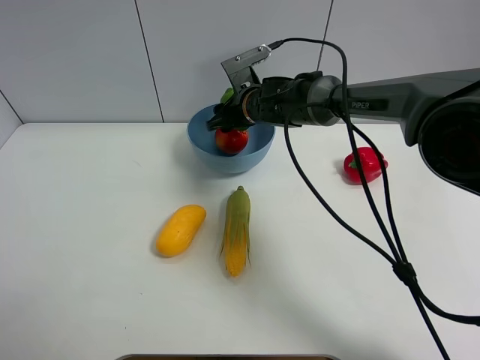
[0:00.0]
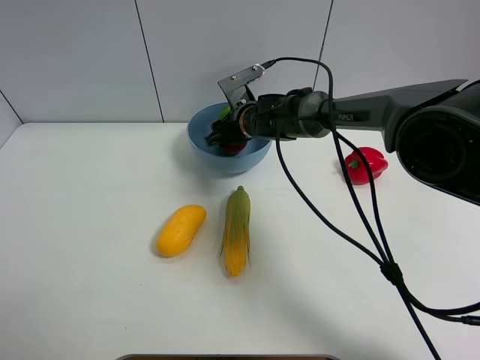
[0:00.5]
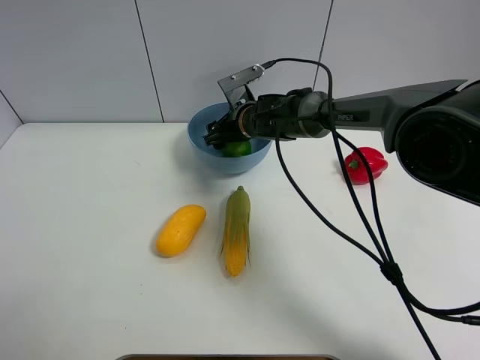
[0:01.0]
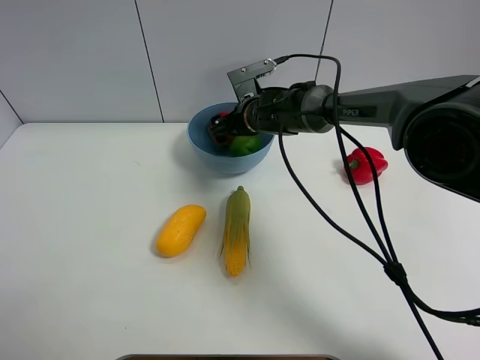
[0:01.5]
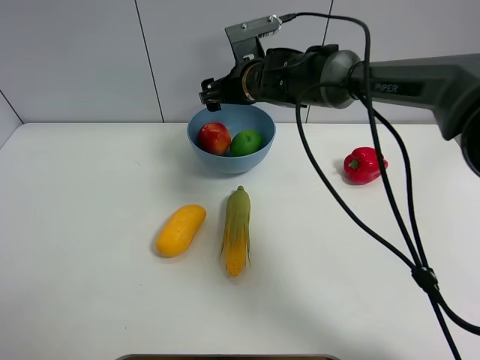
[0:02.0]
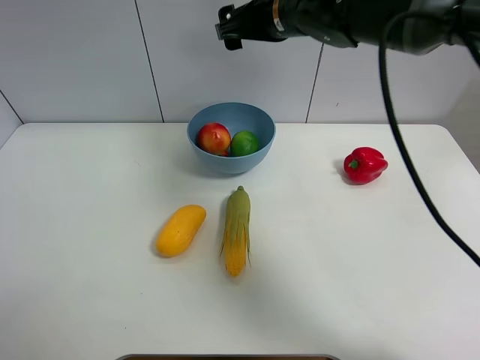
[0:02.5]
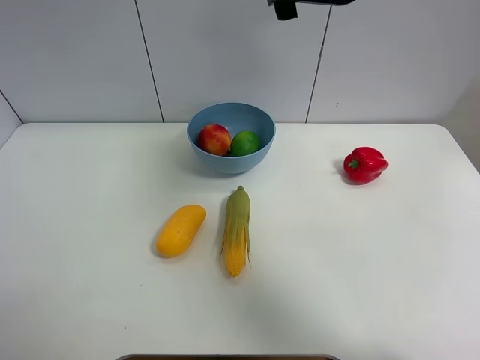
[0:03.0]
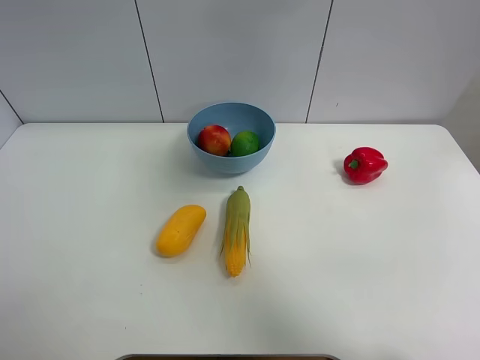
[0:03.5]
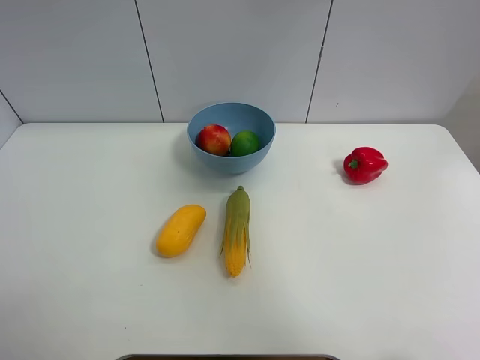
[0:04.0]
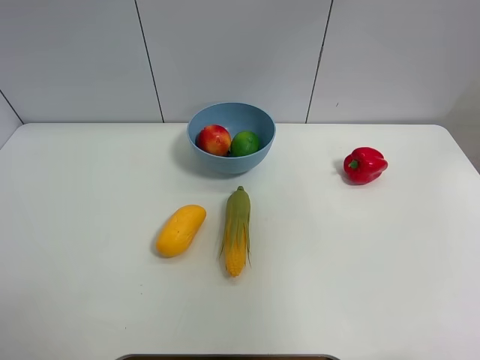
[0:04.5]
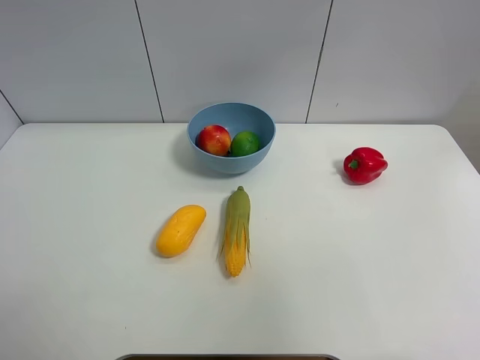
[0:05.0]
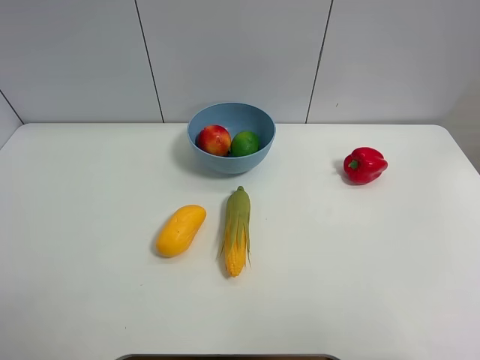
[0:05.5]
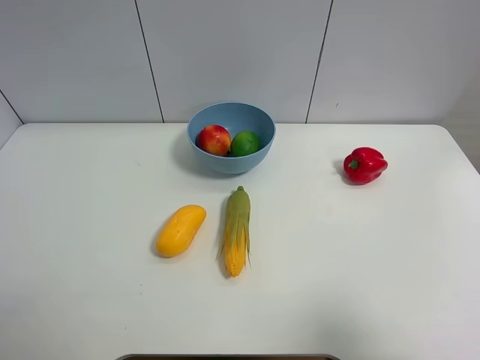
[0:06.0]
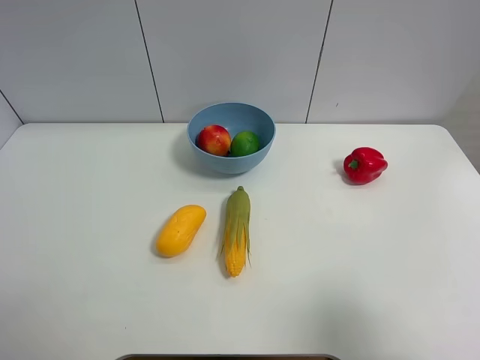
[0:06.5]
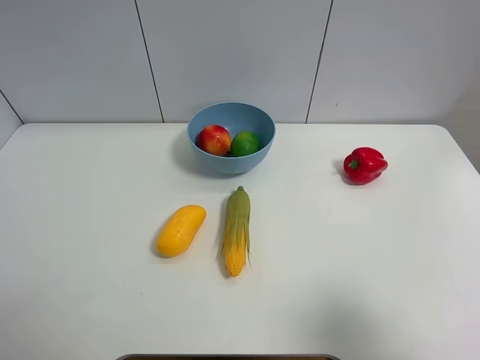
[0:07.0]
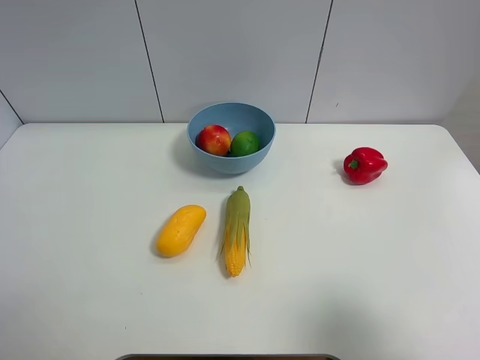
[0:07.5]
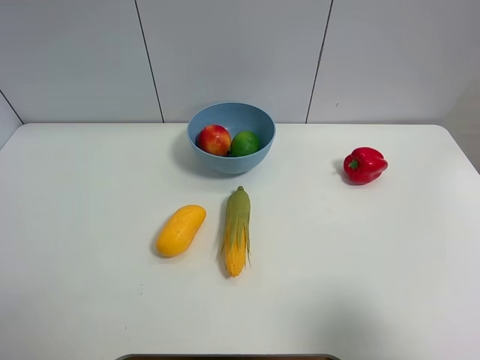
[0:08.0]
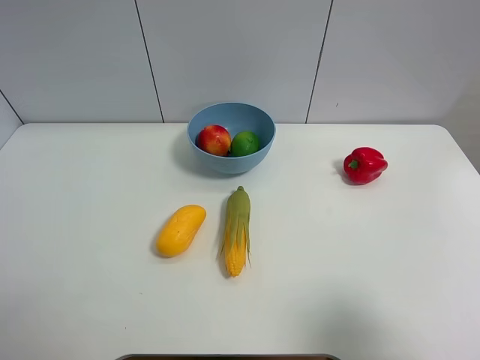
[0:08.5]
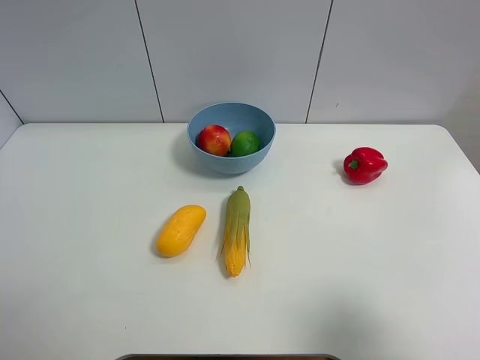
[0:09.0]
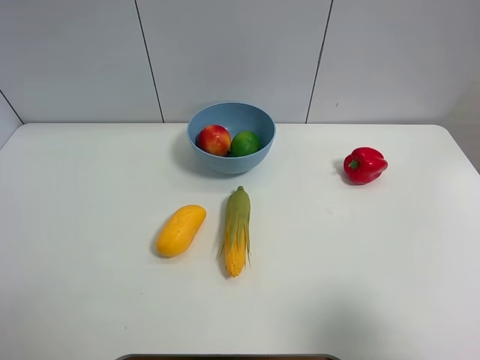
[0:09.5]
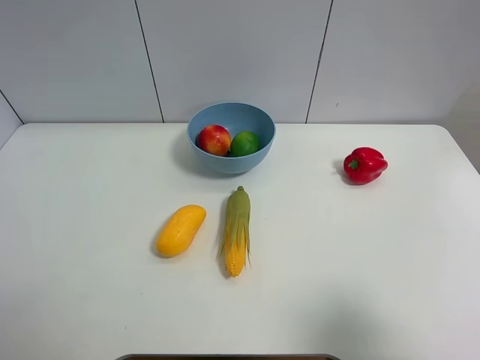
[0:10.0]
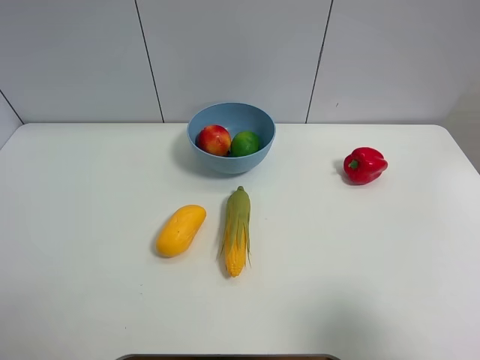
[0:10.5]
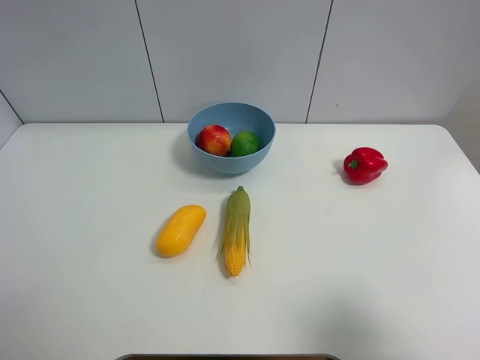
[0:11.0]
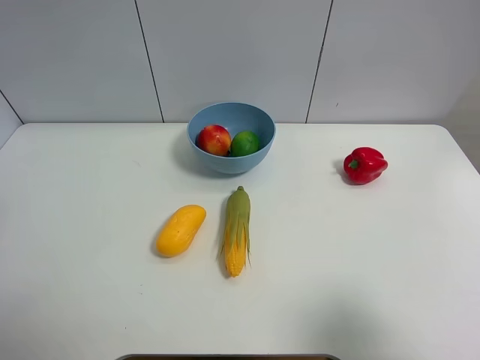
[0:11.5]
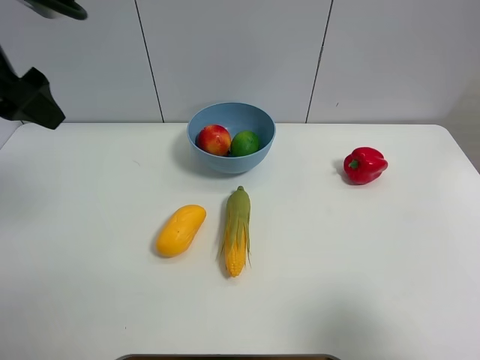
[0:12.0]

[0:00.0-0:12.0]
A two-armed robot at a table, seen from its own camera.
Task of the whole recording: Put the three fruits on the table into a bowl.
0:00.0 to 0:02.0: The right gripper heads upward, covering approximately 5 cm.
0:02.0 to 0:04.0: The right gripper moves upward, backward and to the right, roughly 40 cm.
0:04.0 to 0:06.0: The right gripper travels backward and downward by about 30 cm, and closes up.
0:08.0 to 0:10.0: The two grippers keep their place.
0:10.0 to 0:12.0: The left gripper is displaced forward and upward by approximately 30 cm.

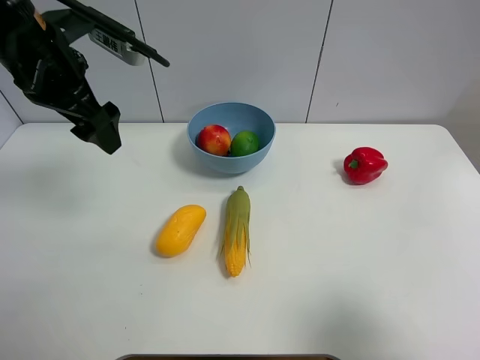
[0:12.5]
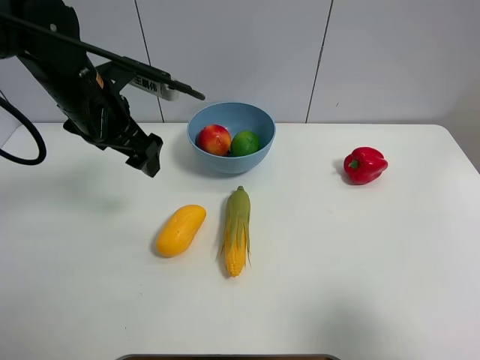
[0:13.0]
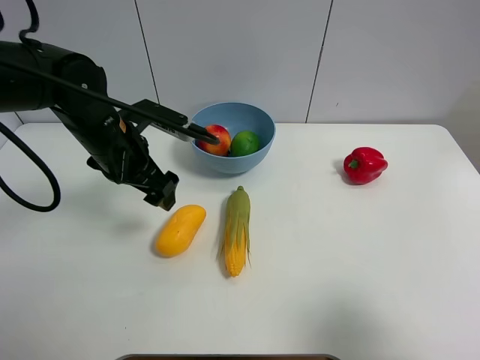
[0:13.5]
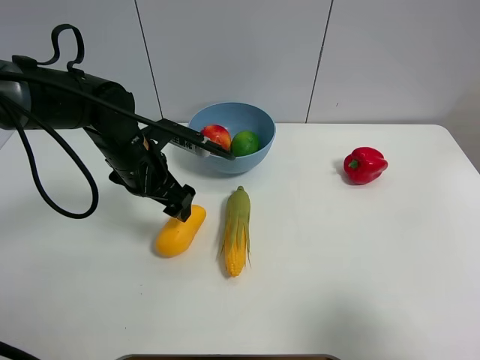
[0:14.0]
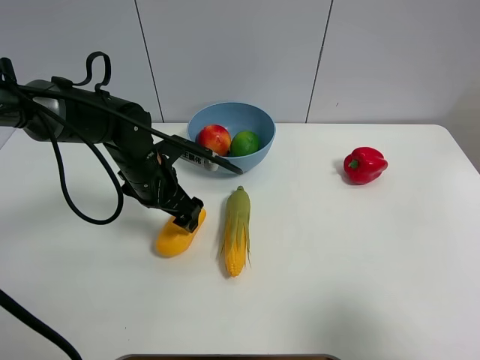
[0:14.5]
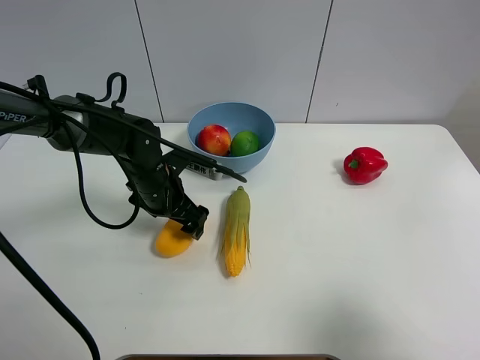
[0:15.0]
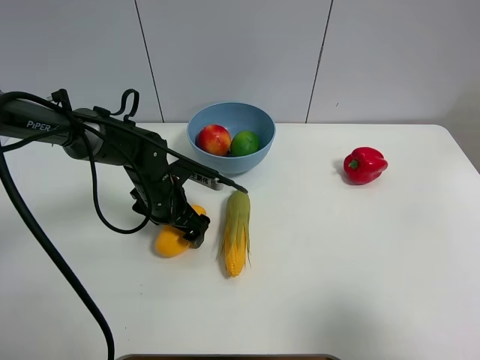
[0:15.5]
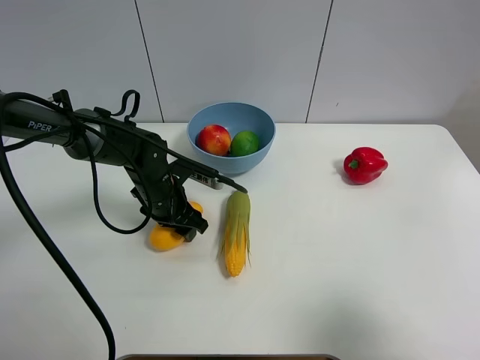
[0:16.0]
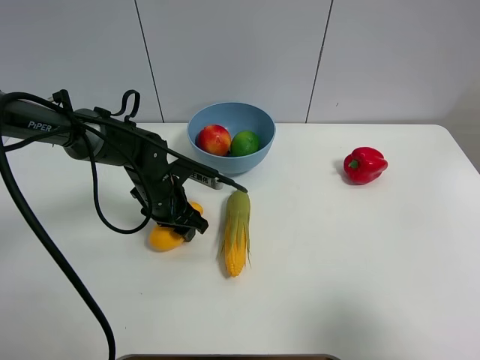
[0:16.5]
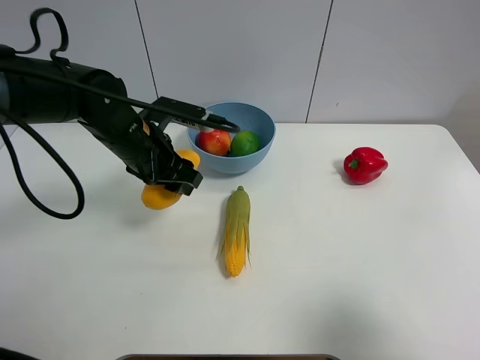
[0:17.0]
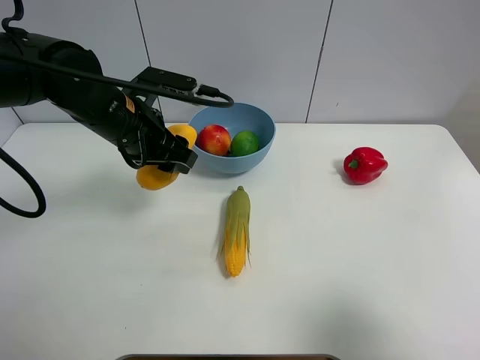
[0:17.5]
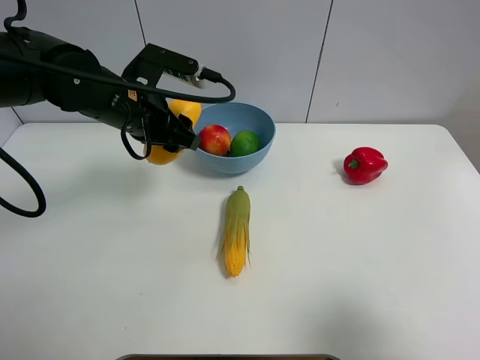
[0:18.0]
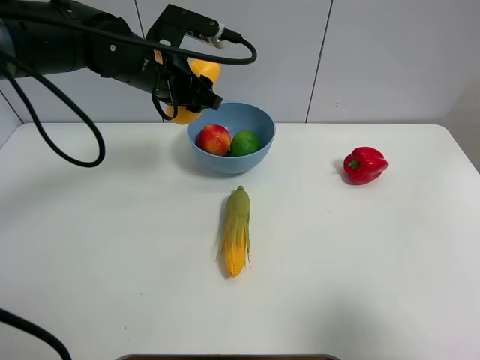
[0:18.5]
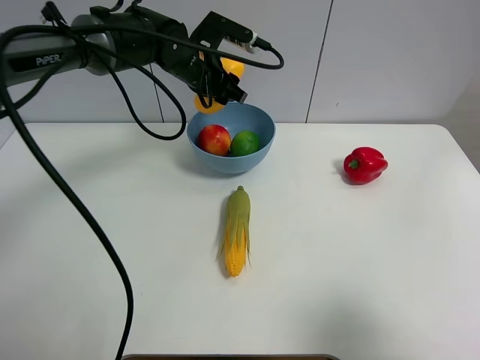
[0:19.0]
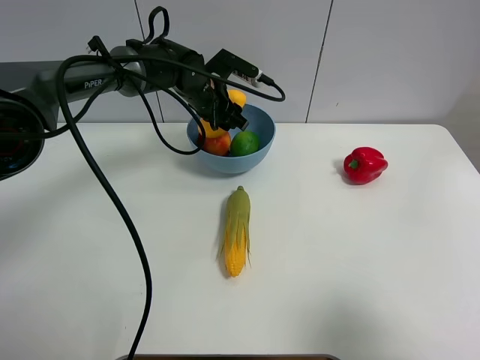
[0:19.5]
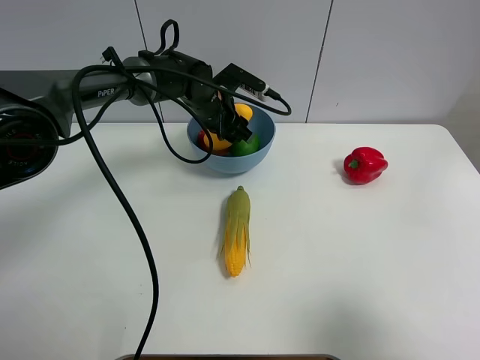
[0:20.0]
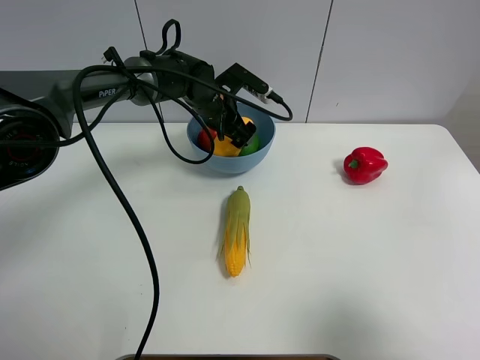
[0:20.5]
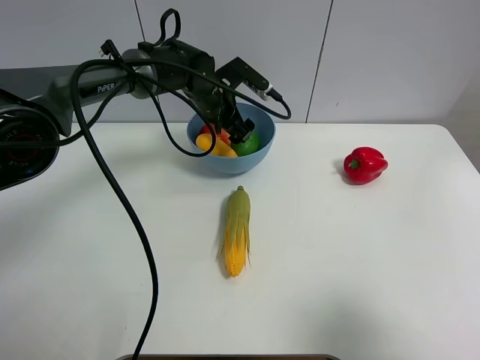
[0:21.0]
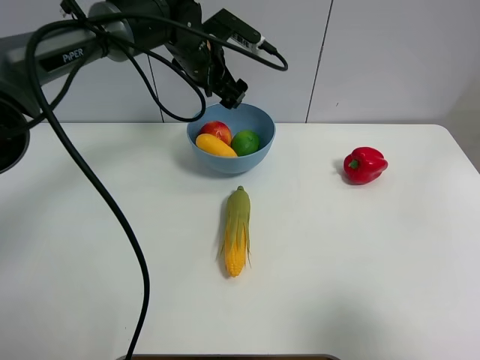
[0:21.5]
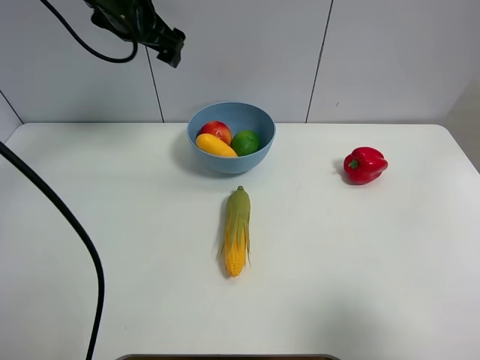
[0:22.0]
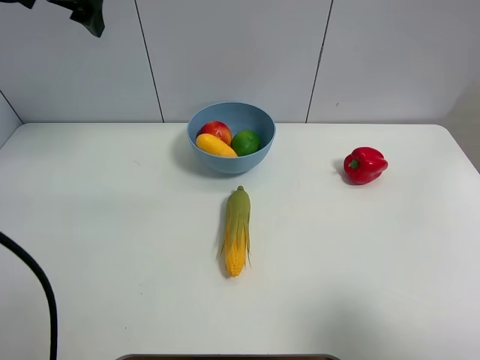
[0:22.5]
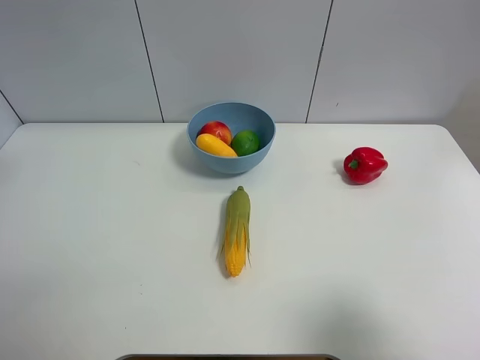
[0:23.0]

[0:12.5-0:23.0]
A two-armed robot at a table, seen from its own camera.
Task of the whole recording: Put the three fruits on the table into a bowl.
Step, 0:12.5 to 0:16.0: Grasp the mango with left gripper.
Step, 0:16.5 to 0:21.0: Place the mango in the blue bowl with left gripper.
0:12.5 to 0:14.5: The left gripper goes approximately 20 cm downward.
0:14.5 to 0:16.5: The left gripper heads downward, covering about 5 cm, and closes its fingers.
0:16.5 to 0:19.0: The left gripper is displaced upward, forward and to the right by about 20 cm.
0:19.0 to 0:21.0: The left gripper shifts approximately 5 cm downward, and opens.
0:21.0 to 0:23.0: The left gripper heads upward, to the left and backward, covering about 40 cm.
